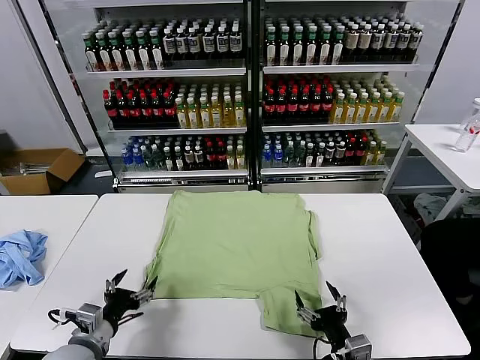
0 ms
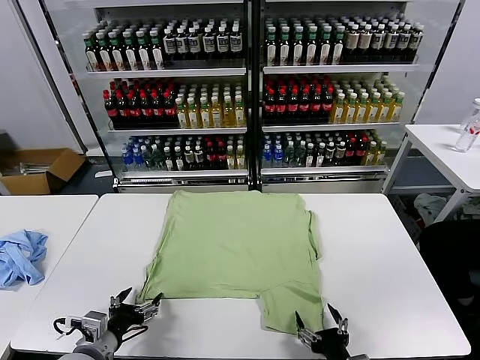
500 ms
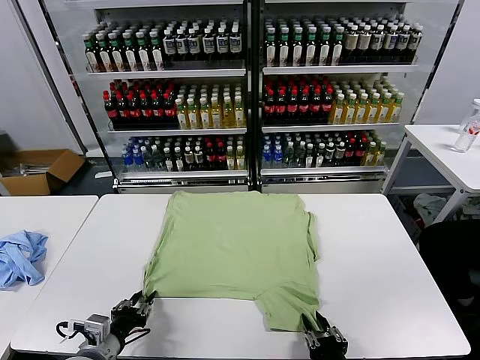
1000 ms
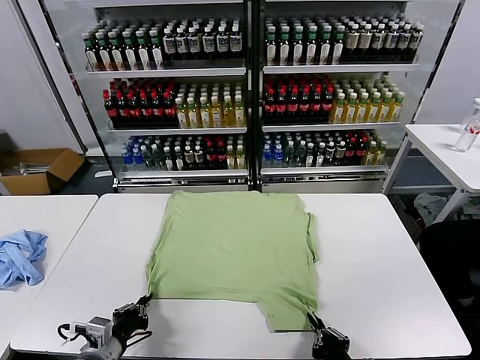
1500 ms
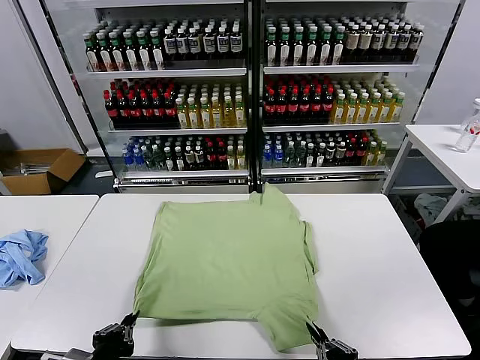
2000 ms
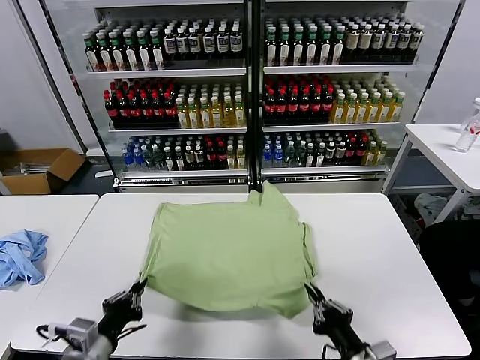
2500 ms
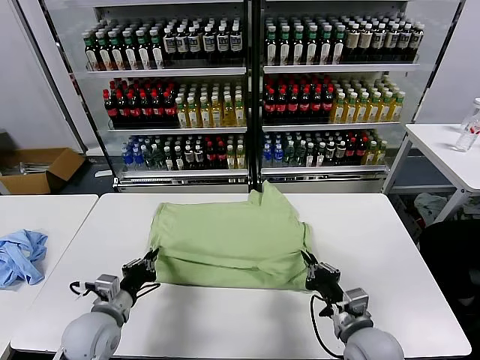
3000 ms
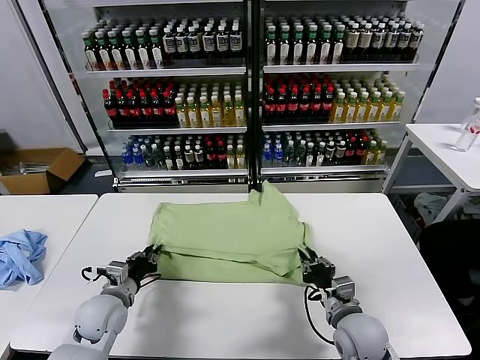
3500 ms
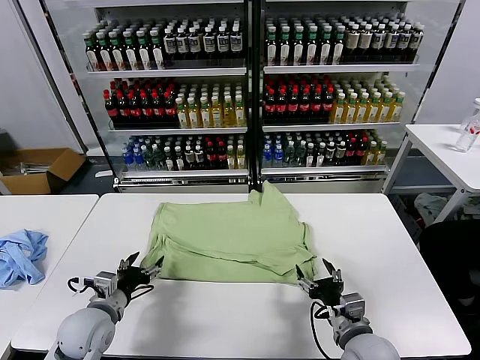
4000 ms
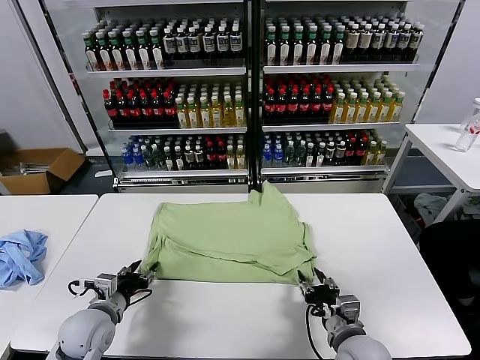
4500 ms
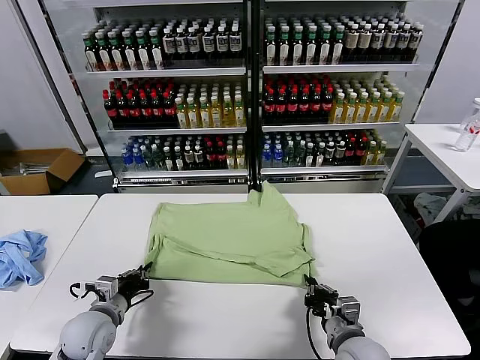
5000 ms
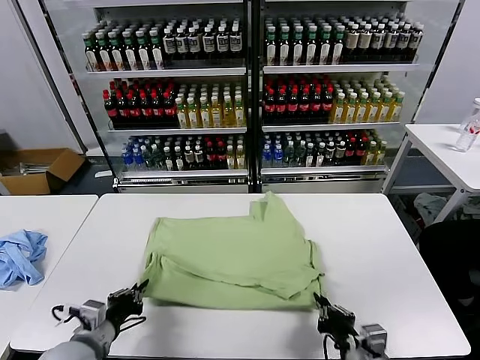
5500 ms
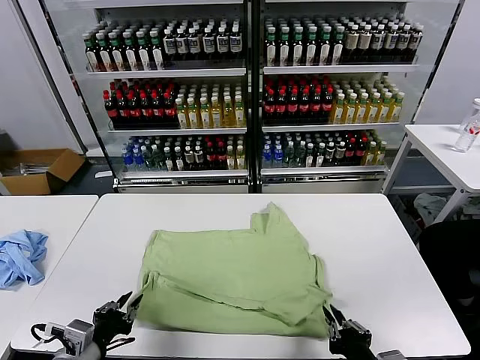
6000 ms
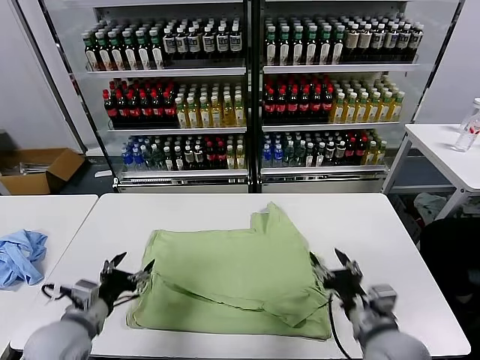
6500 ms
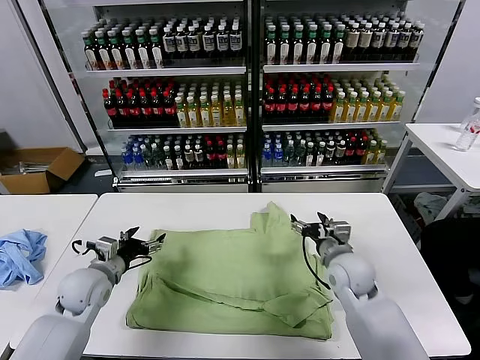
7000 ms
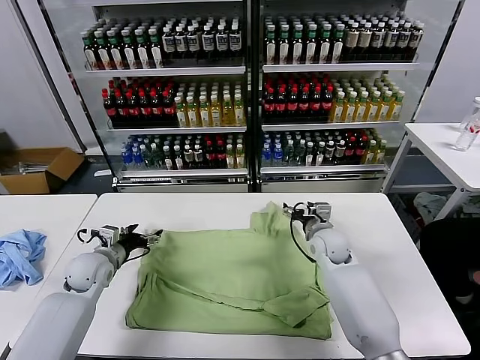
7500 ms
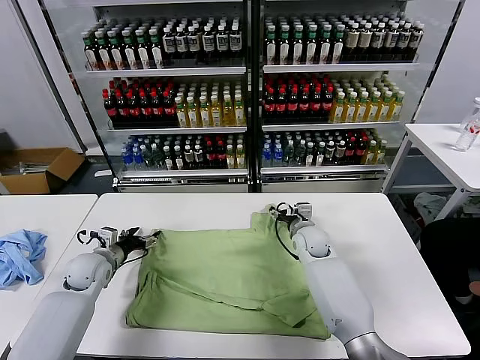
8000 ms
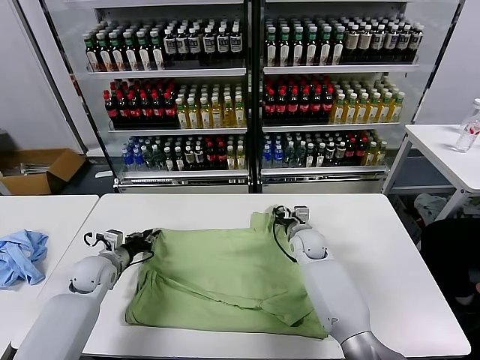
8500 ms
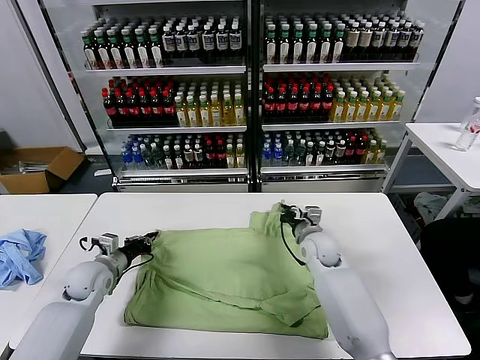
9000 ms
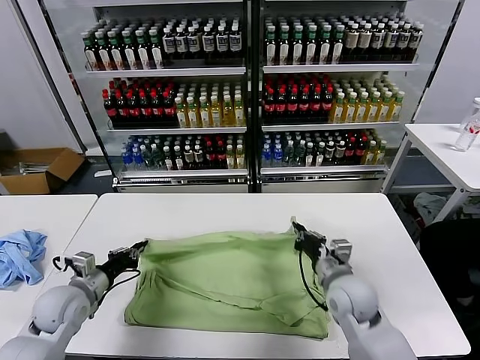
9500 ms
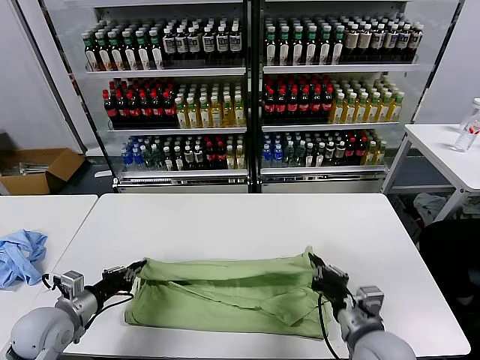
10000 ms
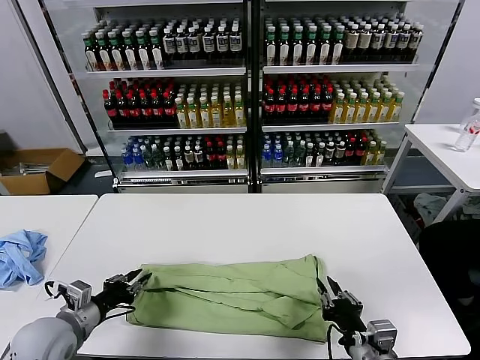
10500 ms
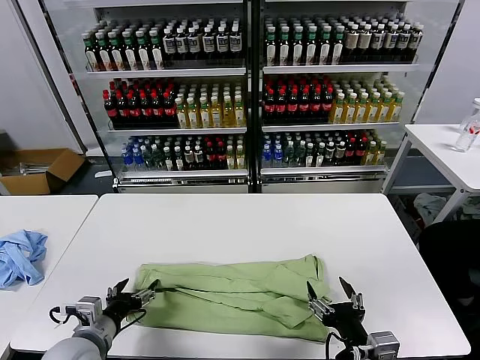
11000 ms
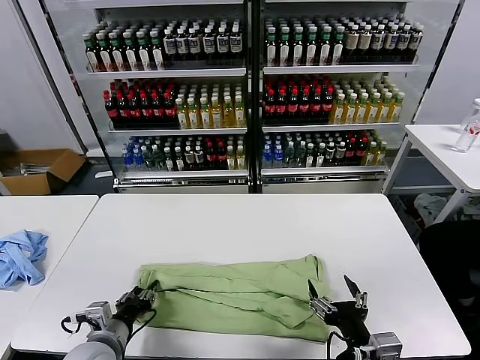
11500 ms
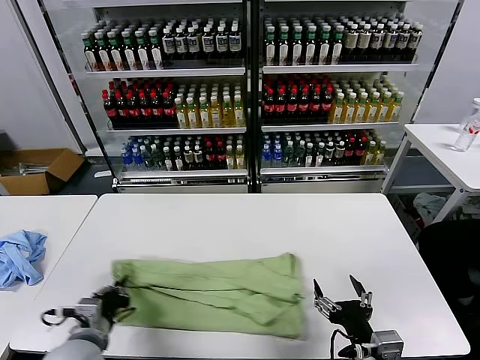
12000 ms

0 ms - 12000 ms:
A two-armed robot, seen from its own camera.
Task of the whole recording: fold and organize the clothes.
Step, 0 ms - 1000 ms: use both grippers simultaneously to clamp the lower edge of the clothing fabric.
Step, 1500 ms - 3500 ms: use both grippers to drag the lower edge of the fabric forward and fold it over the upper edge.
Step, 4000 ms - 6000 ms: Drag the clothes downward with both gripper.
Step, 6500 ms - 8500 ms: use both grippers simultaneously to clamp the upper edge of the clothing fabric.
Step, 9000 ms - 10500 ms: use both grippers to drag the upper edge of the fabric backward and fold it over the lower edge.
Step, 11000 ms - 11500 ms: use the left gripper to clamp the left edge of the fabric.
2000 ms - 4000 ms: Both grippers move forward, roughly 15 cm. The right gripper opens, while the left gripper opens its fingers.
4000 ms - 6000 ms: The grippers both shift backward and upward by some 15 cm. The right gripper closes, while the left gripper closes.
6000 ms - 8000 ms: The right gripper is displaced forward by roughly 40 cm, and opens its fingers. Meanwhile the left gripper is displaced forward by some 25 cm, and opens its fingers.
8000 ms - 10000 ms: The left gripper shifts about 15 cm backward, and closes, while the right gripper goes some 30 cm backward, and closes up.
10000 ms - 12000 ms: The right gripper moves backward, some 5 cm, and opens. The left gripper heads to the right and backward, covering about 10 cm, and opens, then closes once more.

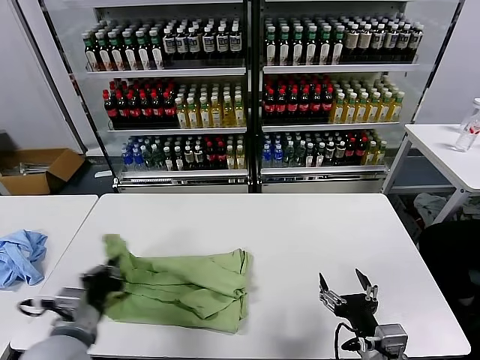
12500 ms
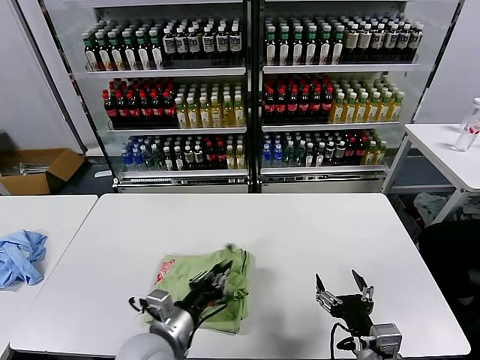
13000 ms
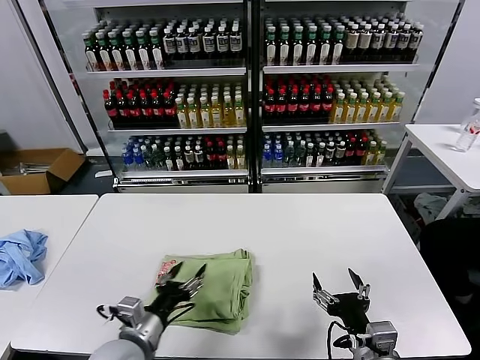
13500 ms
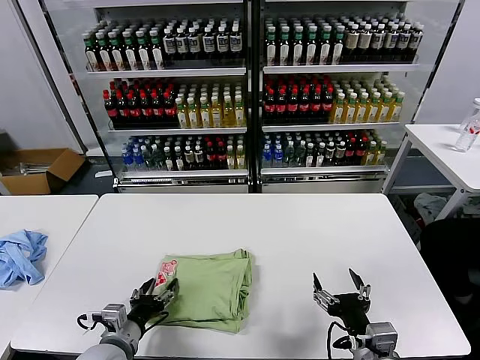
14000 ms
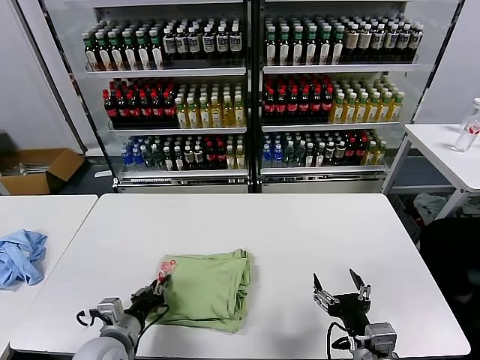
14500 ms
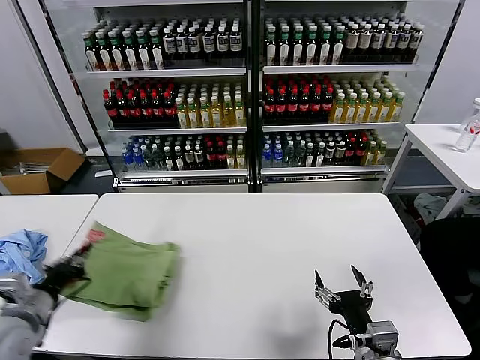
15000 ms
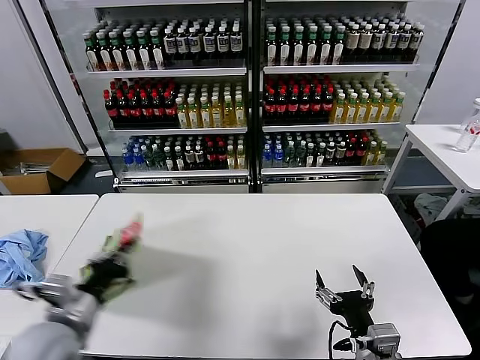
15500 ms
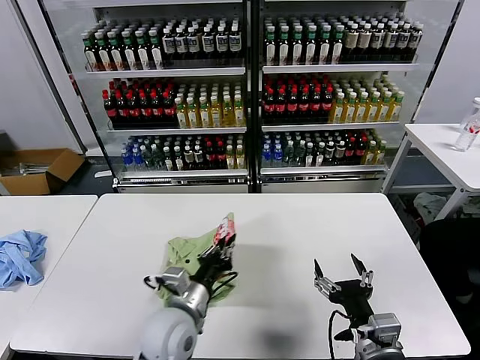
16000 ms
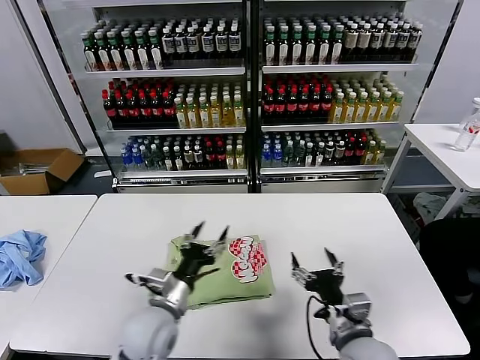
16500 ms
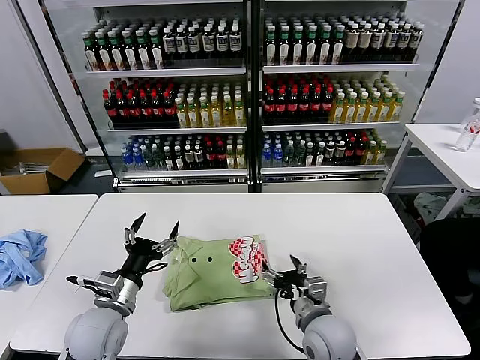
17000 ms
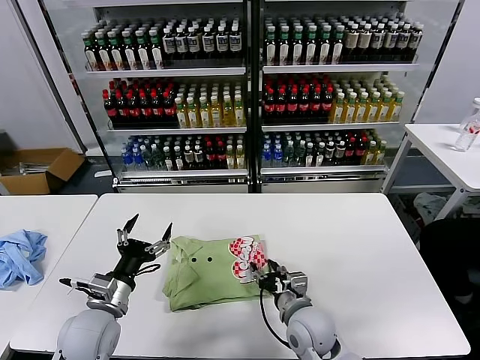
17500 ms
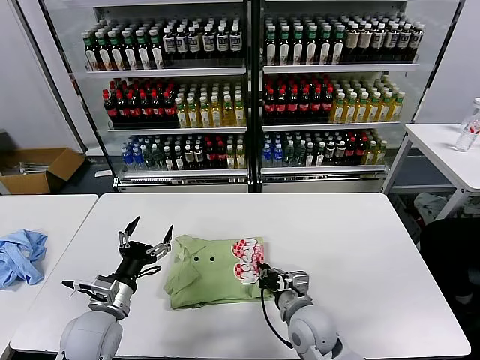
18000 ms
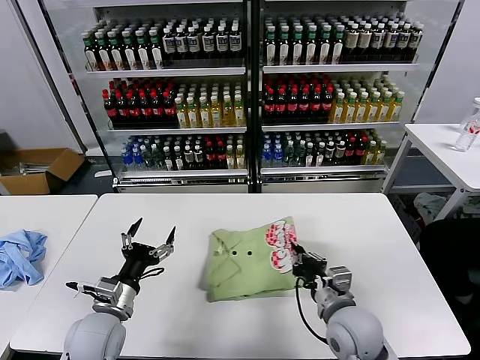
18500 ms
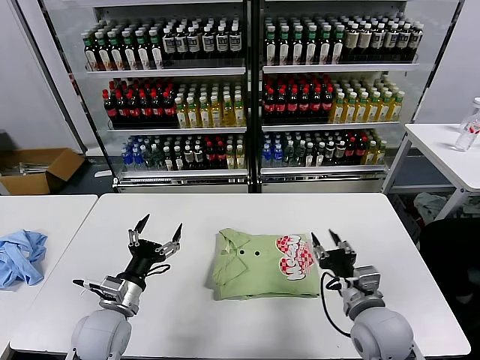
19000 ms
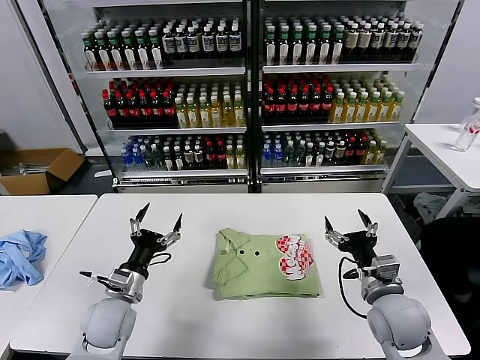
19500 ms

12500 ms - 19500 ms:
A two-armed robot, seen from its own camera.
Task of the whole recording: fold and organize the clothes.
Step, 13500 ms - 16000 ms: Flip the folded clothes over with left gripper.
Step, 16500 ms - 18500 ms: Drag the clothes to the center of the table.
12500 ms - 14500 ms: The left gripper heads downward, covering about 10 cm, goes to the right and returns, about 15 cm each way, and opens, then closes again.
14500 ms - 16000 ms: The left gripper goes some 15 cm to the right and upward.
16000 ms - 17500 ms: The left gripper shifts approximately 15 cm to the left, and opens up, while the right gripper goes roughly 20 cm forward, to the left and downward.
17500 ms - 19500 ms: The right gripper moves to the right and upward, some 15 cm, and closes, then opens again.
